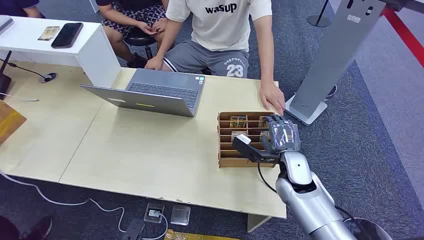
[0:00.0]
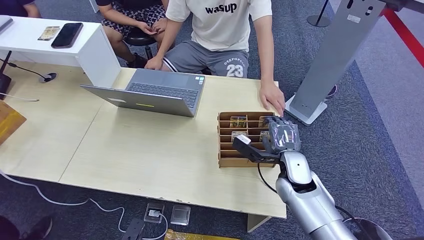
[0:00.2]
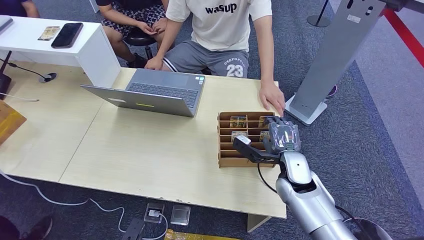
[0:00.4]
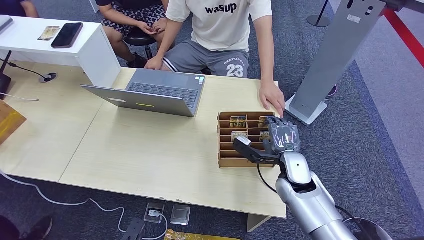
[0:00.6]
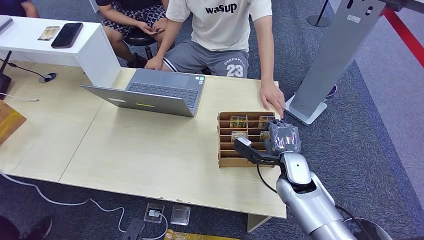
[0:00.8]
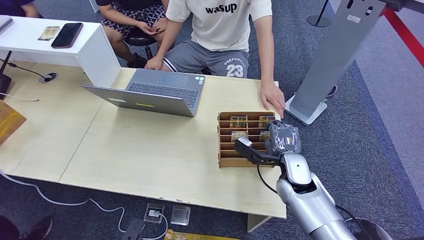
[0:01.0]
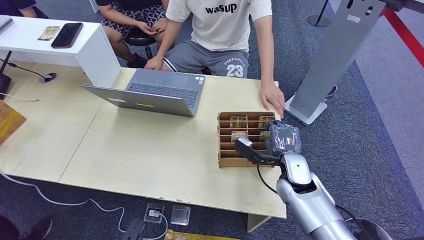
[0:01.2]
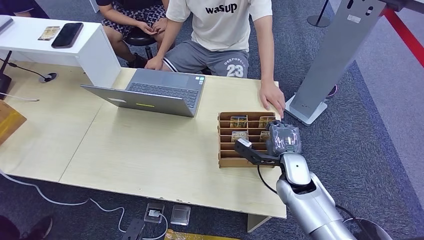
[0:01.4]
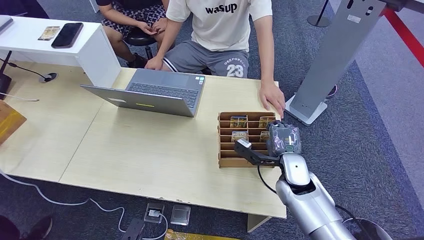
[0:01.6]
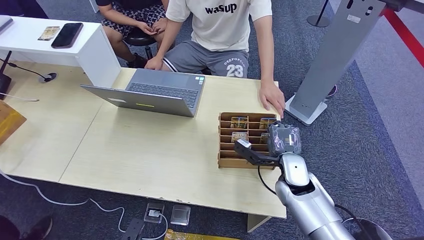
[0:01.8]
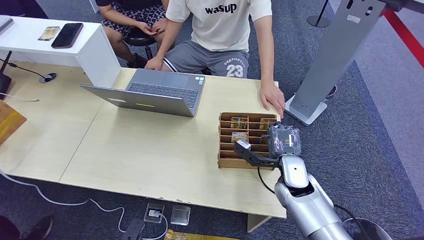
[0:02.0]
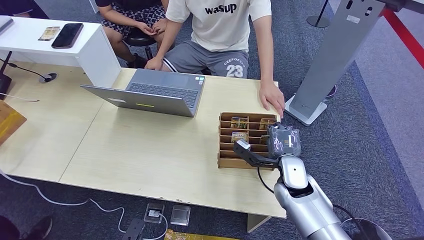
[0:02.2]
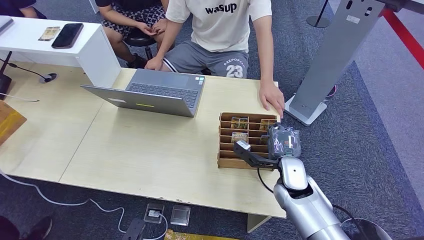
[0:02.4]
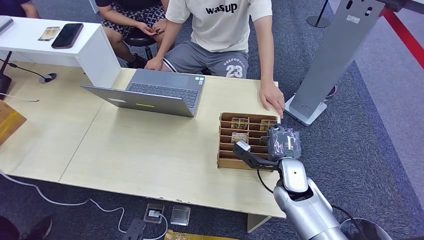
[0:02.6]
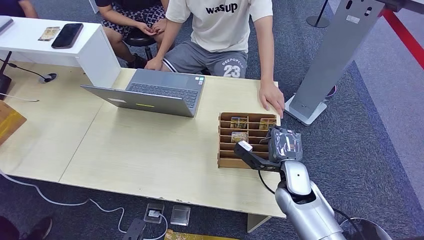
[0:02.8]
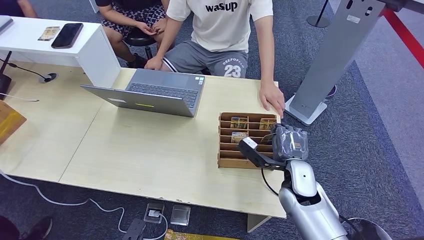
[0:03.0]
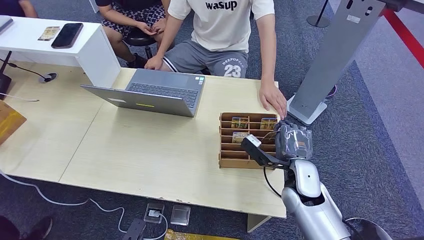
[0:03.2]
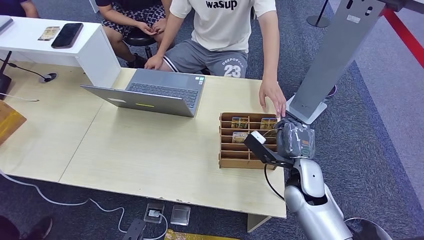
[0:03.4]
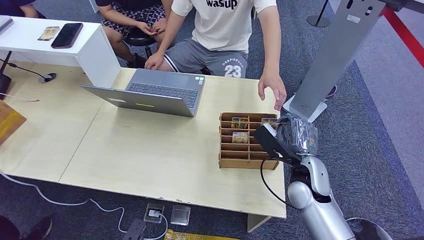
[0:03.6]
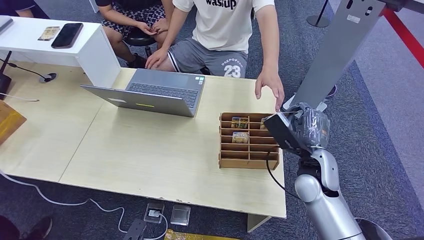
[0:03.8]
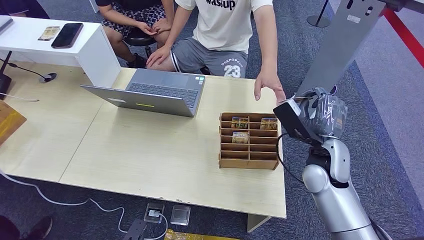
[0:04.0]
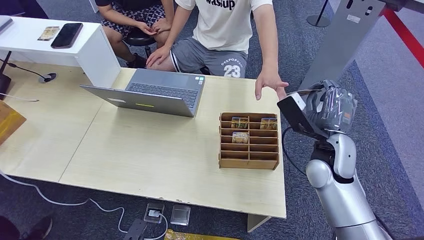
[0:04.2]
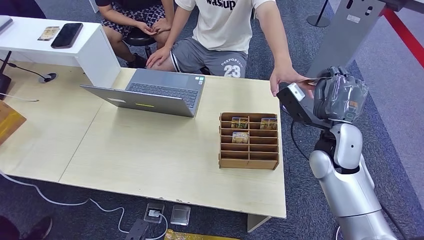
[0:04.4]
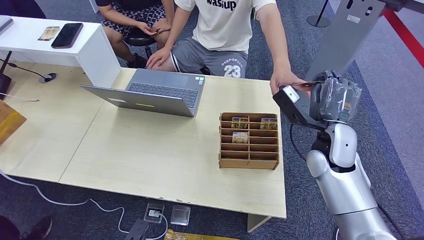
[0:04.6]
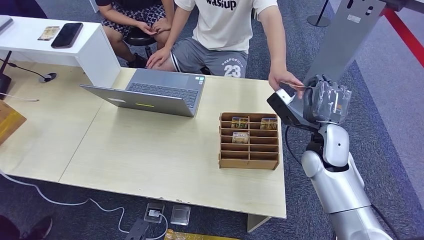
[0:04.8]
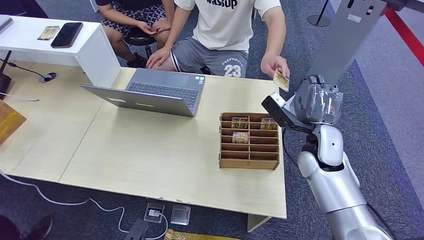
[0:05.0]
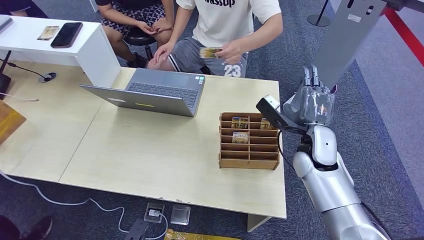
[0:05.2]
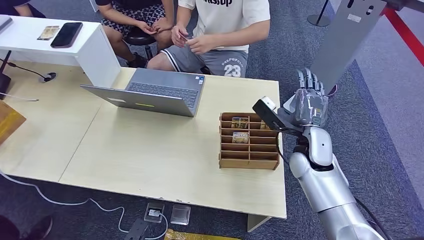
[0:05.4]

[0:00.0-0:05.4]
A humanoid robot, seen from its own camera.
Step, 0:00.0 to 0:03.2: Pick up the room card from the card holder.
Step, 0:03.8 to 0:05.2: Hand the room card to the target.
0:01.4 to 0:02.8: The hands move only a little.
0:02.8 to 0:04.0: The right hand heads upward, covering about 10 cm.
0:04.0 to 0:05.4: The hands move only a little.

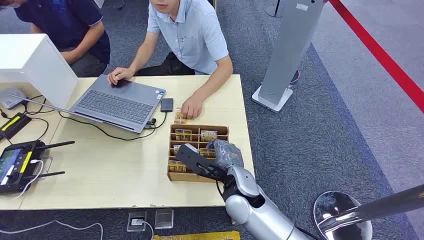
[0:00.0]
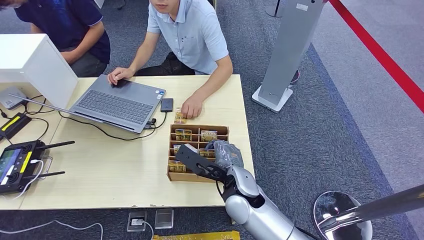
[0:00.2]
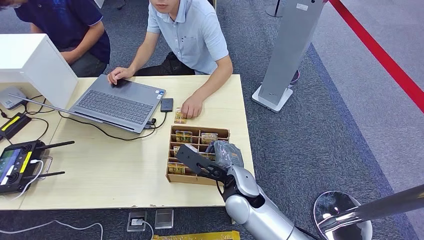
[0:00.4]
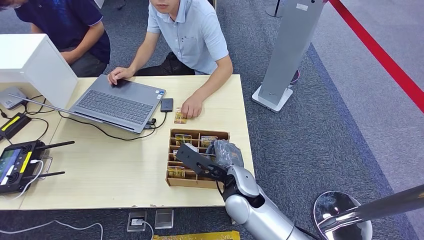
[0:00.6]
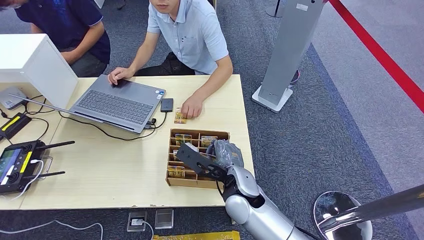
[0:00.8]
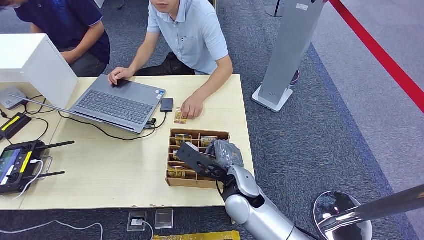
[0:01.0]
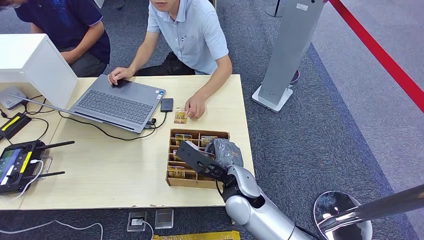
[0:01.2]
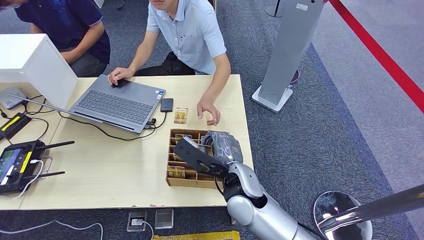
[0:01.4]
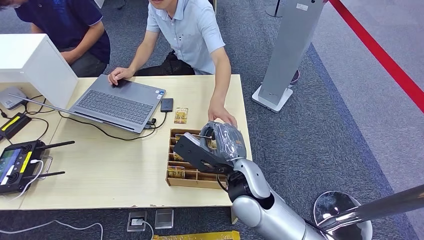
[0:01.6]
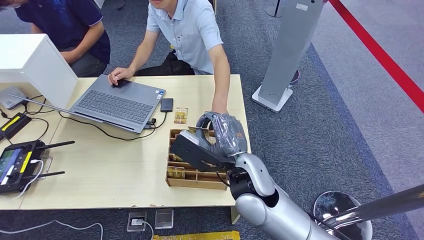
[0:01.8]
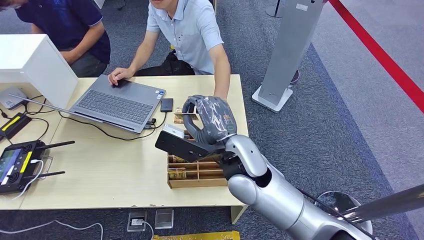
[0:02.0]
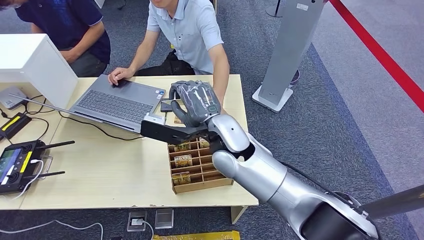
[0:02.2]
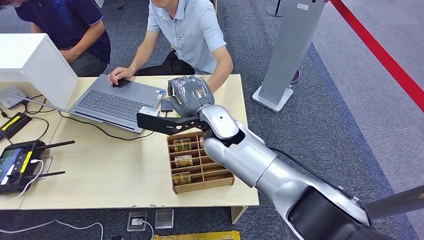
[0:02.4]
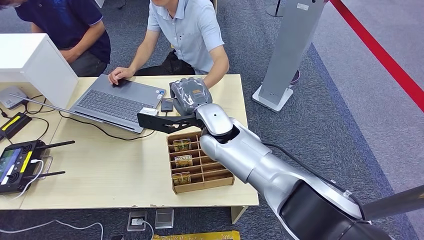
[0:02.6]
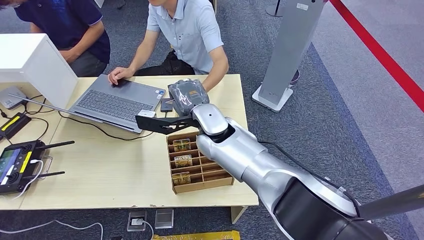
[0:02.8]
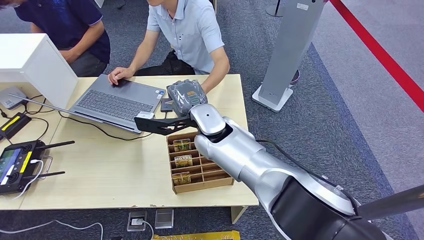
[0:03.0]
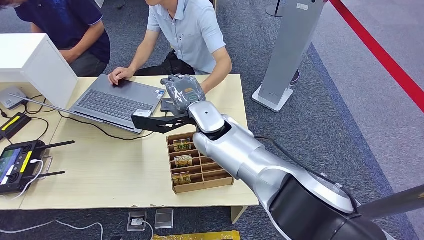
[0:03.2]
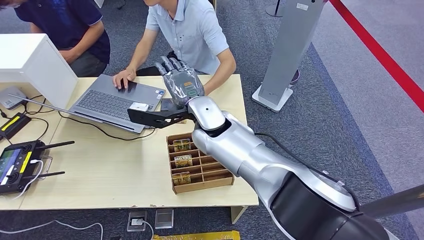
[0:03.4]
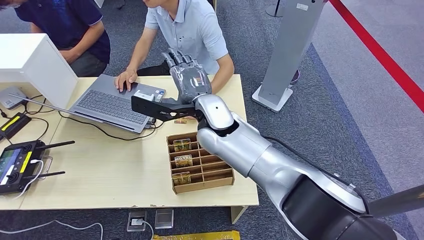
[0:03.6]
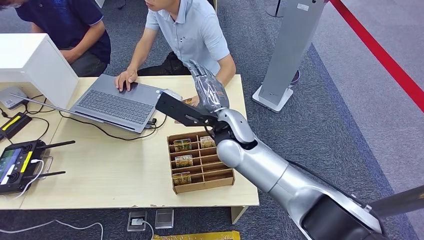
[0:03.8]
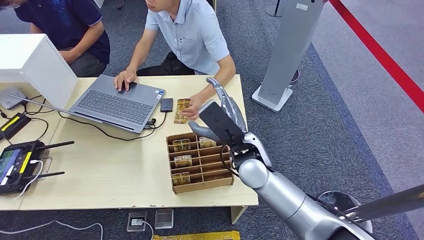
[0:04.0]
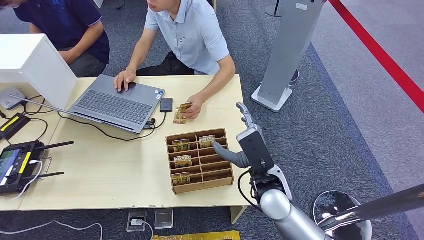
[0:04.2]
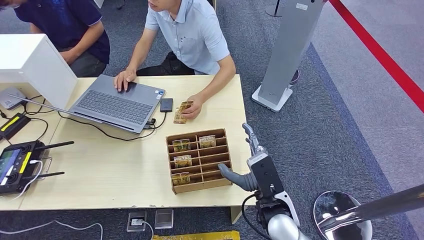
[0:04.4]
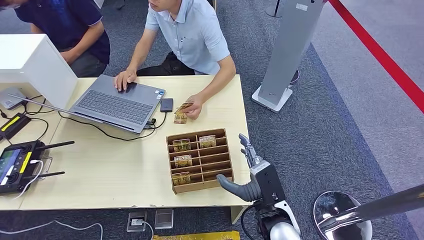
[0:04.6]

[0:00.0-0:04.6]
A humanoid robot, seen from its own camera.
Step, 0:00.0 to 0:01.6: Pick up the room card from the card holder.
Step, 0:01.8 to 0:04.4: Hand the room card to the target.
0:01.6 to 0:03.0: The right hand travels forward and to the left by some 15 cm.
0:03.0 to 0:04.6: The right hand goes about 25 cm backward, to the right and downward.

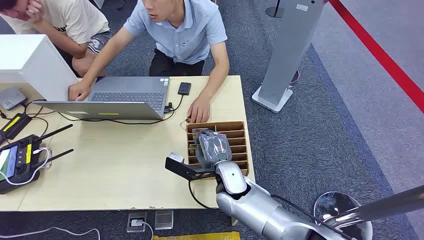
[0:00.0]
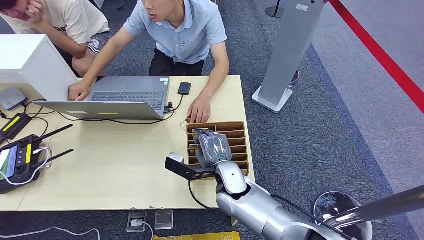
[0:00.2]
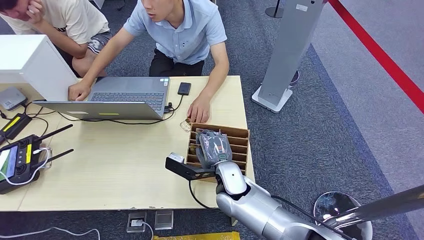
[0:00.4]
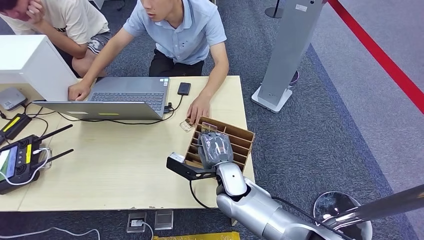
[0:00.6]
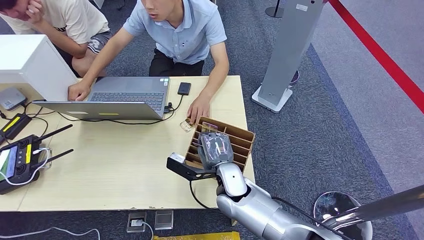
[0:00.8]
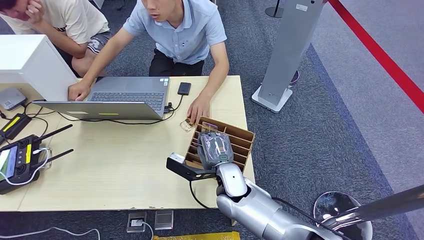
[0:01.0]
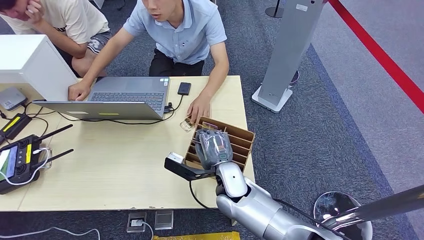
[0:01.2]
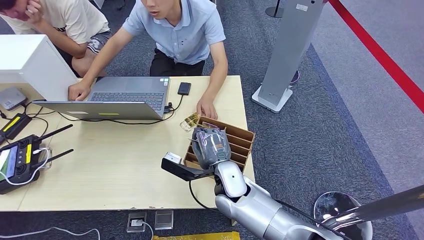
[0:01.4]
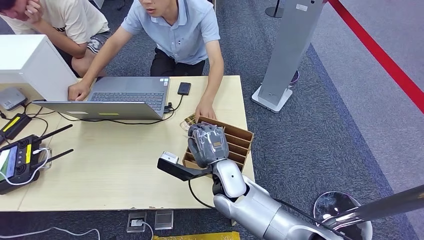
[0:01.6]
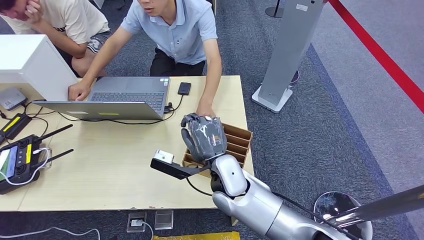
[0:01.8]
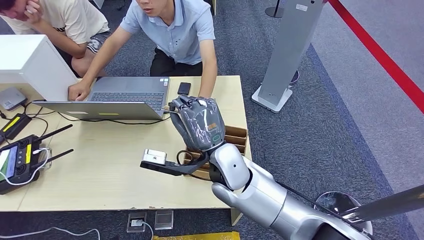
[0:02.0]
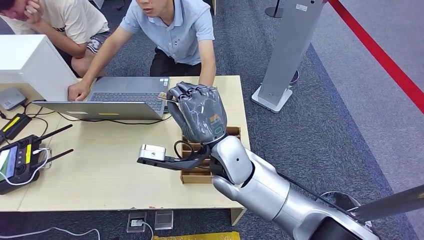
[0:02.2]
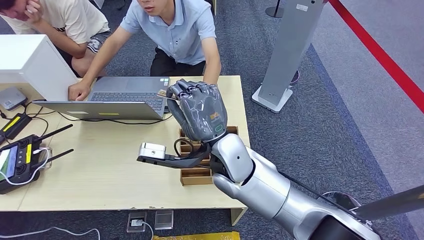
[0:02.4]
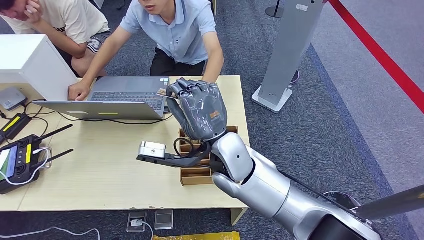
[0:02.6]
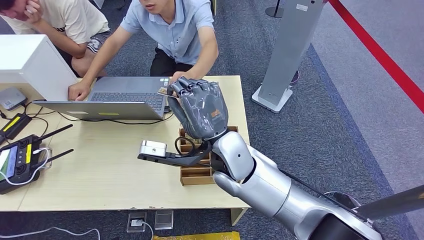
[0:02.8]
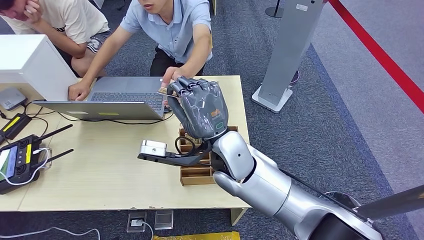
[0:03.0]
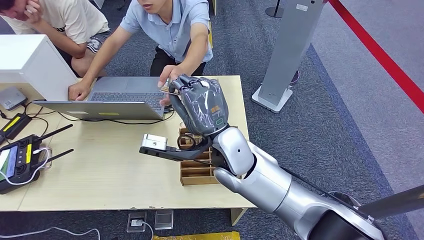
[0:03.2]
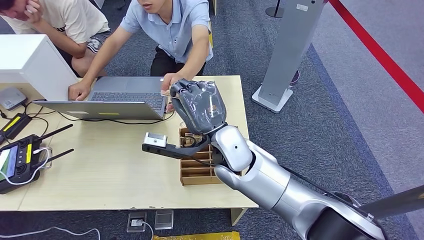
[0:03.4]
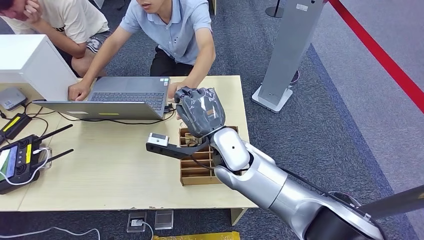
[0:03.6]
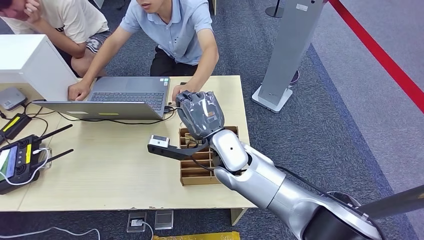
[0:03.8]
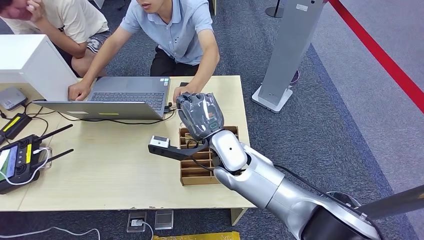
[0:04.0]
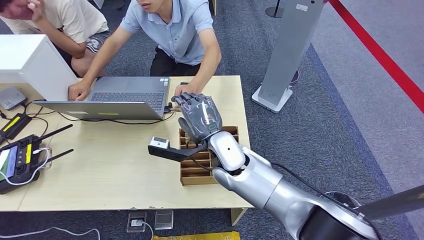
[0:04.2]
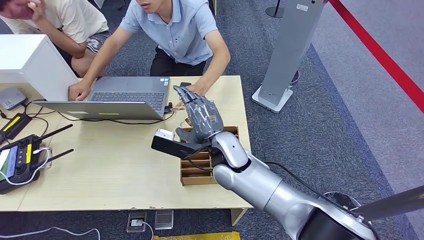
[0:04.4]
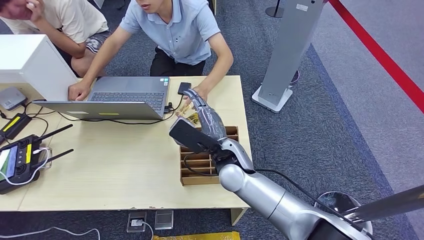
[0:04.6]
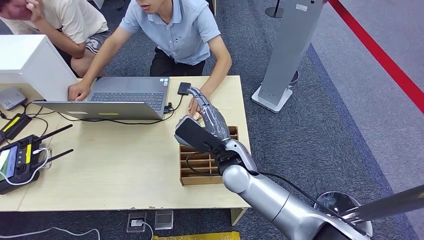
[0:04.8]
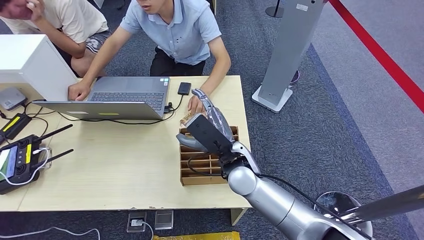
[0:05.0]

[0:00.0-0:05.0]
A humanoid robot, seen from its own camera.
Step, 0:00.0 to 0:02.0: Pick up the room card from the card holder.
Step, 0:02.4 to 0:05.0: Hand the room card to the target.
0:01.6 to 0:03.4: The right hand goes approximately 10 cm upward.
0:03.4 to 0:05.0: The right hand moves downward, about 5 cm.
